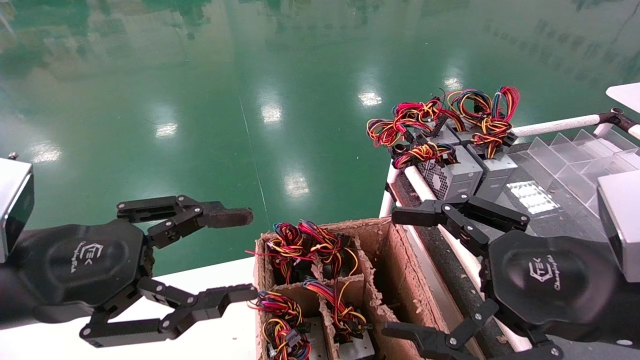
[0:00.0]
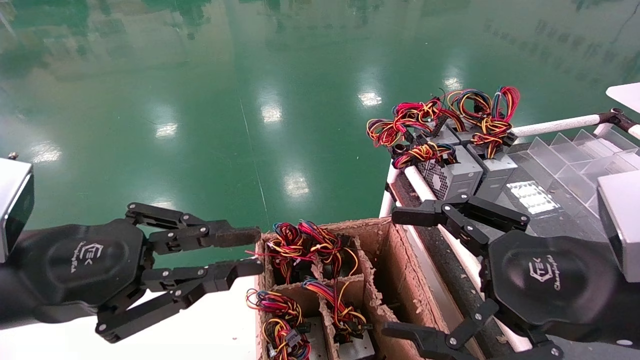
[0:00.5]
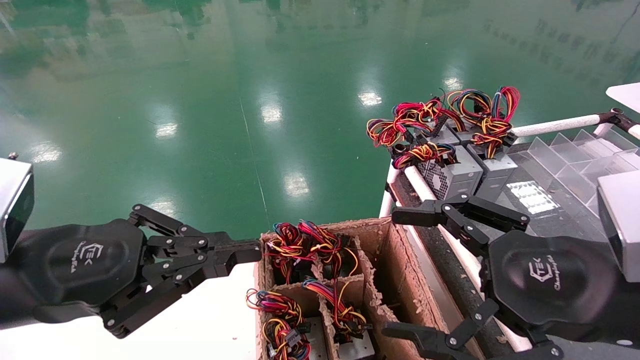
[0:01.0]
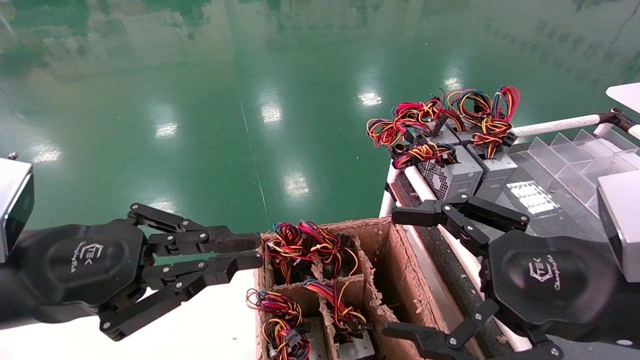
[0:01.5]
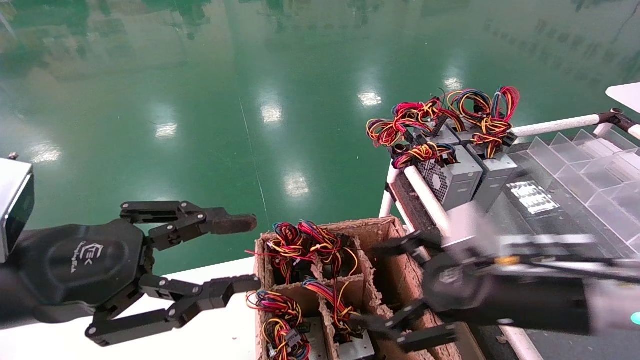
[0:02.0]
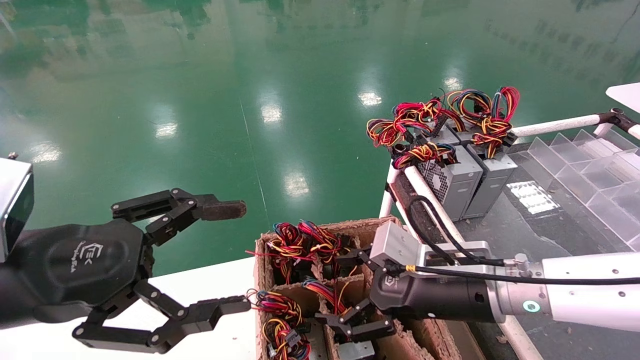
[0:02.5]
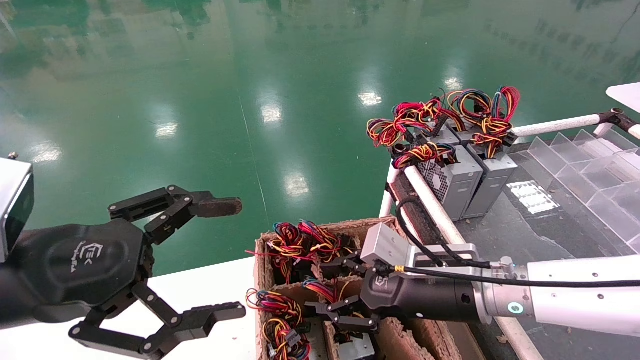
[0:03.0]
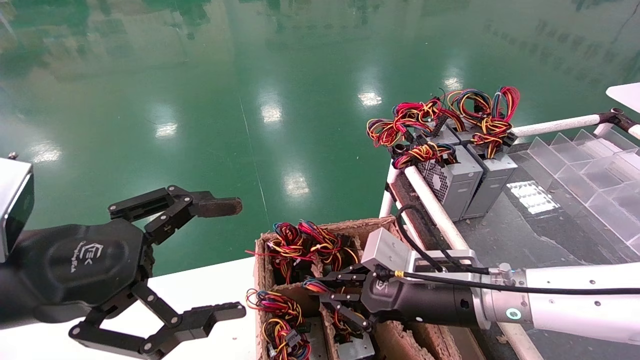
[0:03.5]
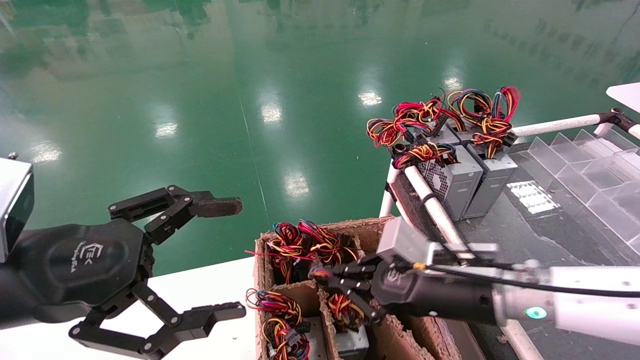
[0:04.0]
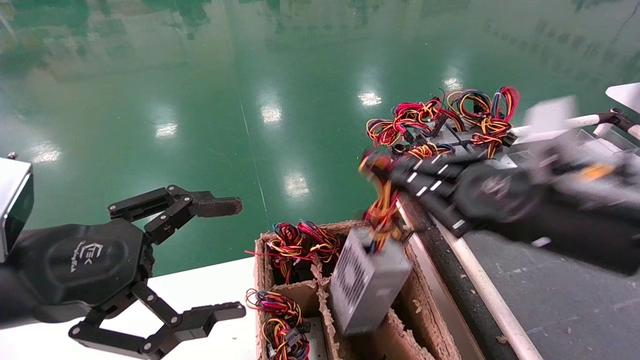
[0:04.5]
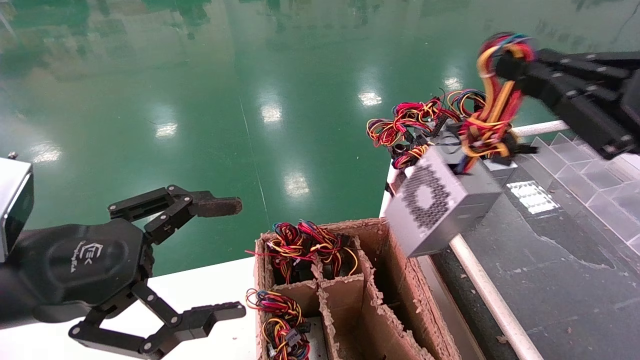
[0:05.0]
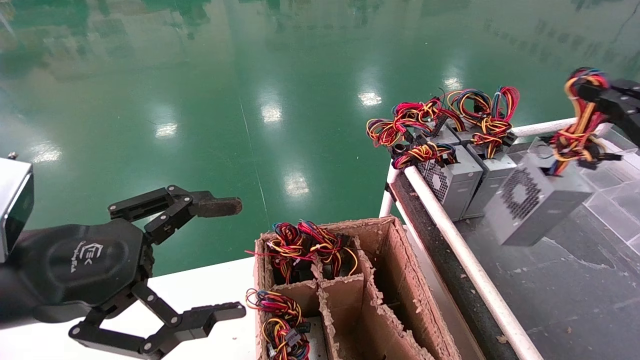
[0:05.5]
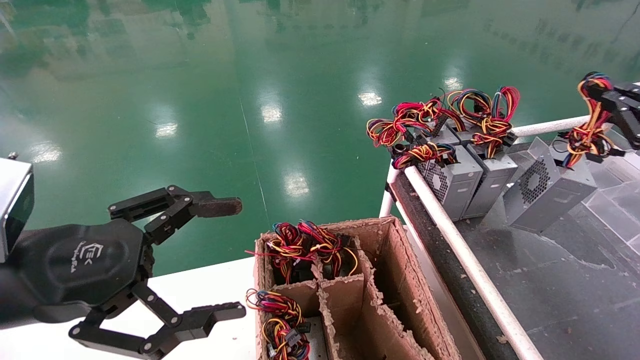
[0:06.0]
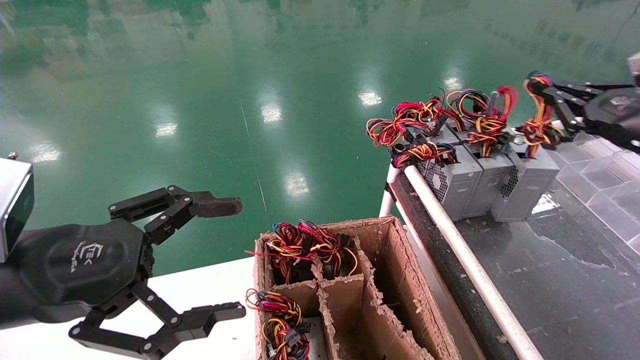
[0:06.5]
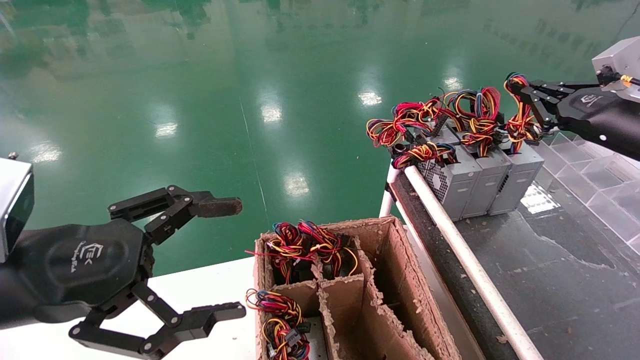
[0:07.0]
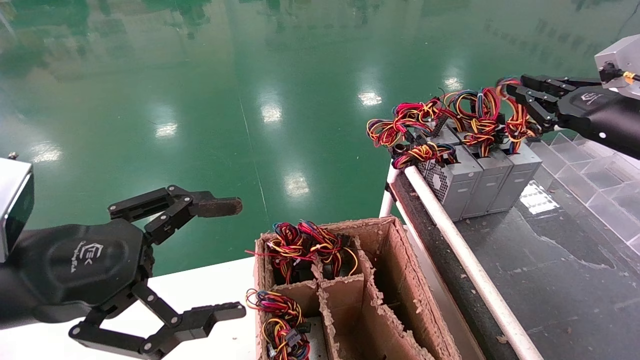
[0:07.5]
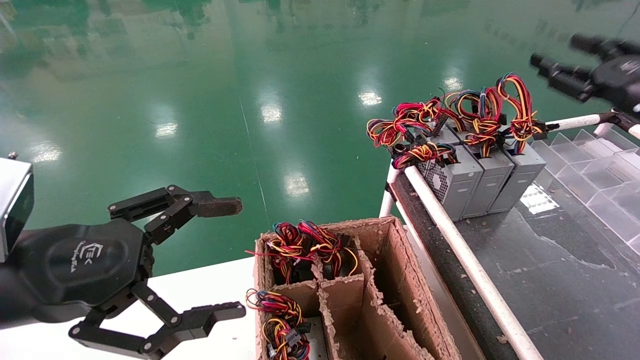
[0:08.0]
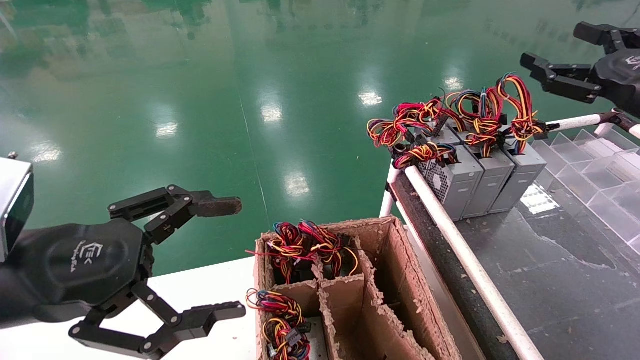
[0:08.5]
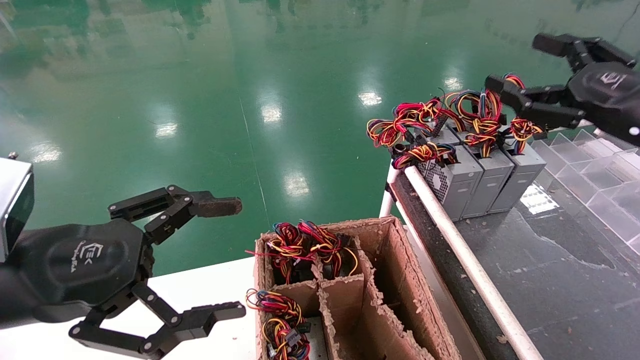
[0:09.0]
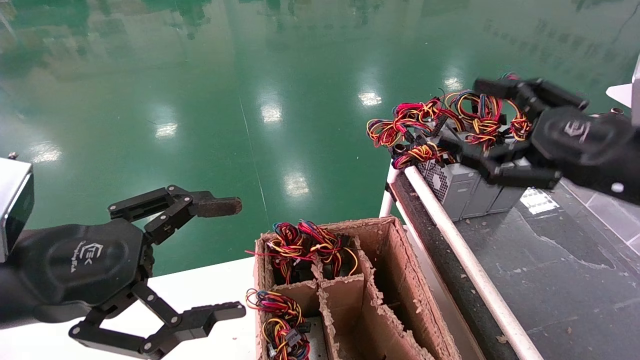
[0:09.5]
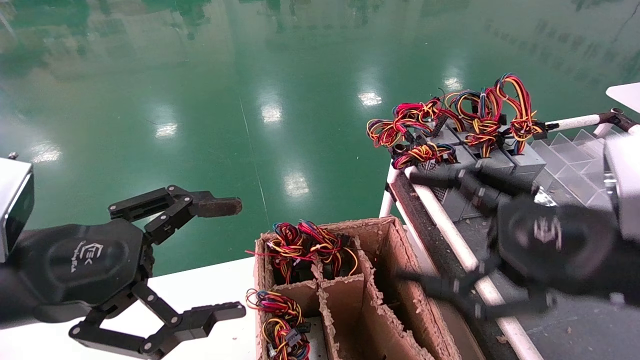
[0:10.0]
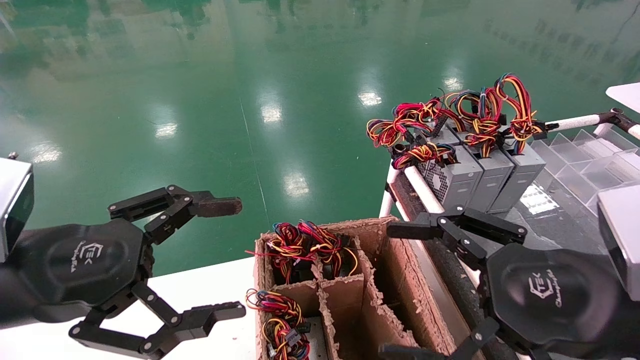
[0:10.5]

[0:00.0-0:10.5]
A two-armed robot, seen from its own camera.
Step, 0:01.0 to 0:03.5: Grab and lift the power supply from the large box.
Step, 0:04.0 to 0:07.5: Place the power supply on the operating table.
0:00.0 to 0:02.0: The right gripper moves forward and downward, about 10 cm.
0:02.0 to 0:04.0: The left gripper opens. The right gripper closes.
0:04.0 to 0:06.5: The right gripper moves to the right and upward, some 30 cm.
0:06.5 to 0:08.5: The right gripper opens its fingers.
0:08.5 to 0:10.5: The right gripper is displaced backward, to the left and downward by approximately 25 cm.
